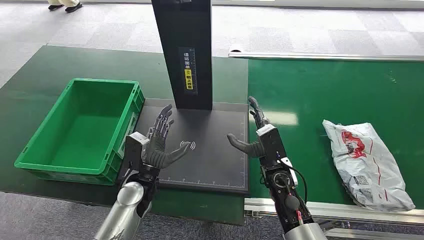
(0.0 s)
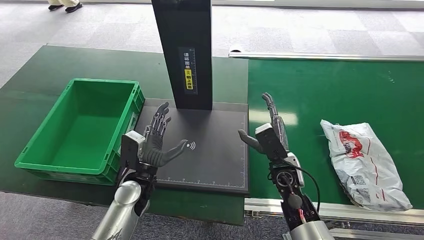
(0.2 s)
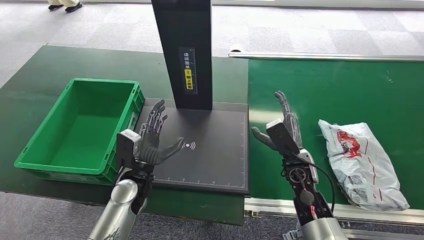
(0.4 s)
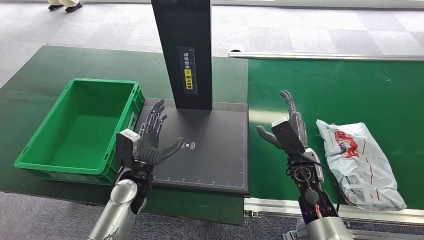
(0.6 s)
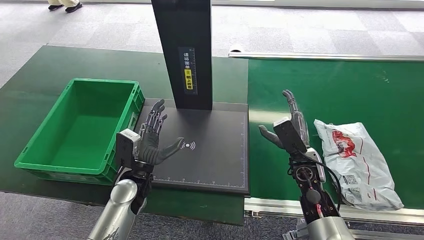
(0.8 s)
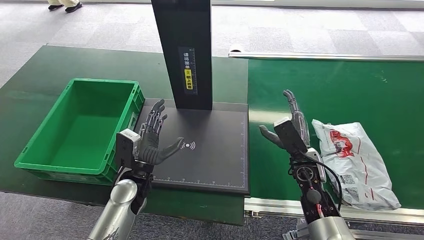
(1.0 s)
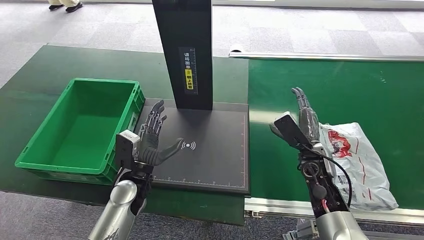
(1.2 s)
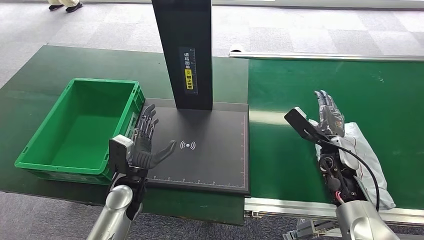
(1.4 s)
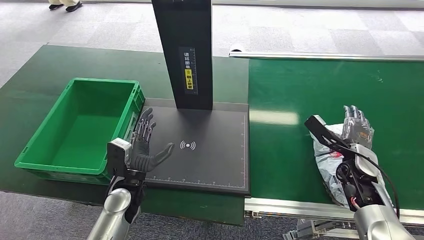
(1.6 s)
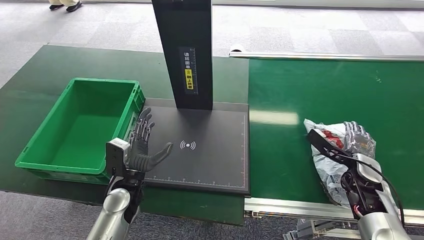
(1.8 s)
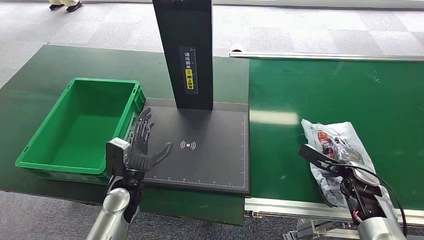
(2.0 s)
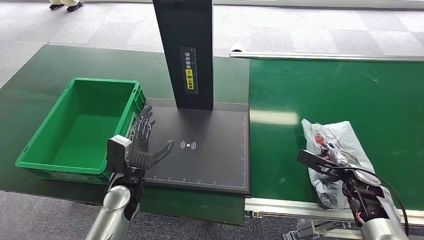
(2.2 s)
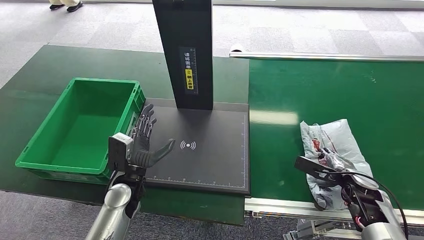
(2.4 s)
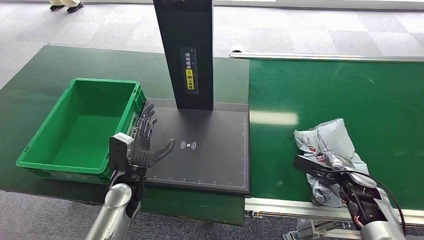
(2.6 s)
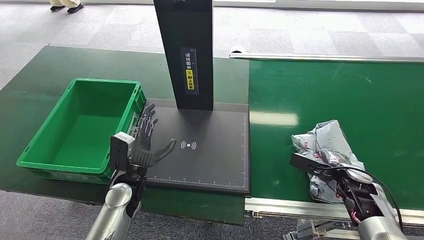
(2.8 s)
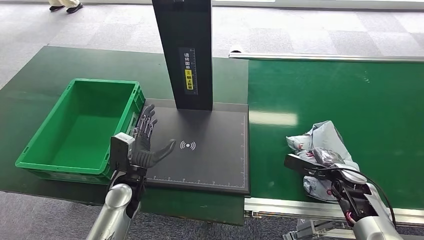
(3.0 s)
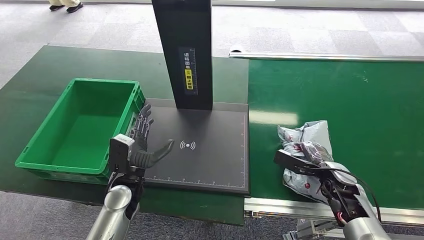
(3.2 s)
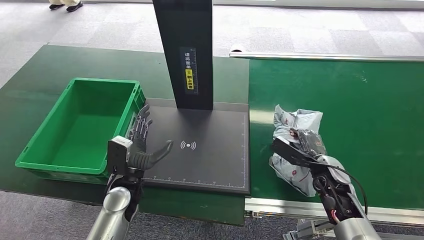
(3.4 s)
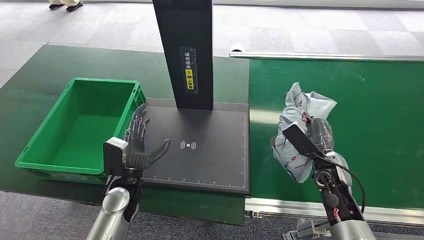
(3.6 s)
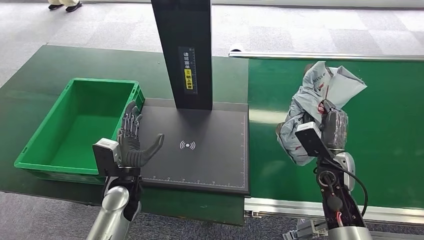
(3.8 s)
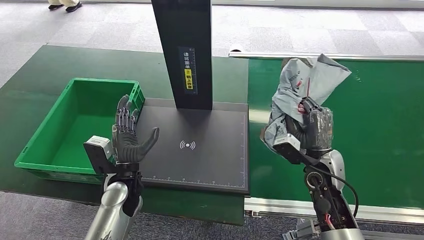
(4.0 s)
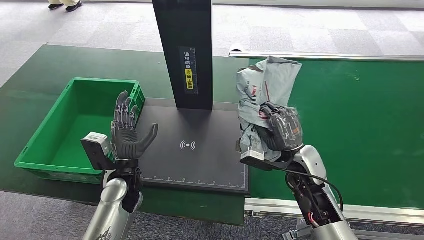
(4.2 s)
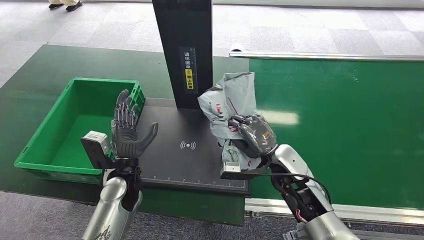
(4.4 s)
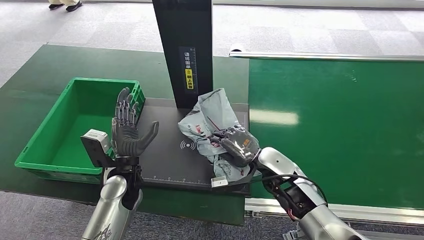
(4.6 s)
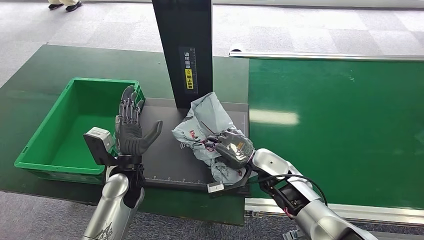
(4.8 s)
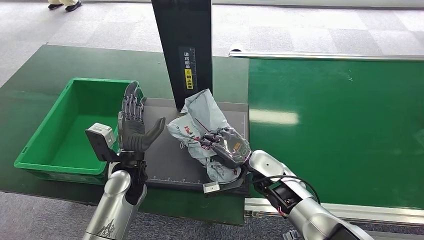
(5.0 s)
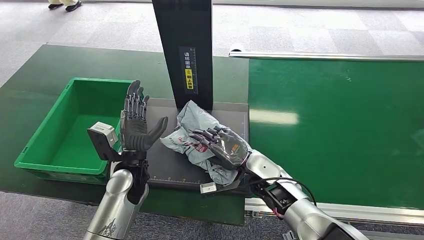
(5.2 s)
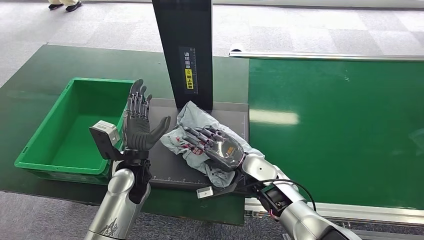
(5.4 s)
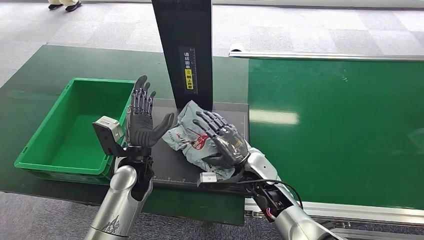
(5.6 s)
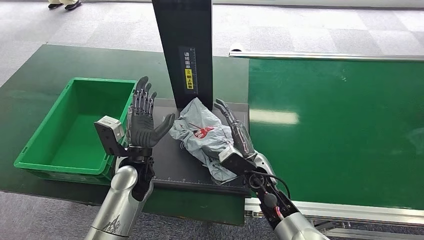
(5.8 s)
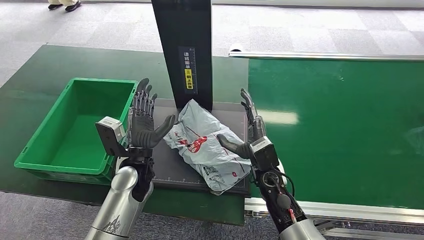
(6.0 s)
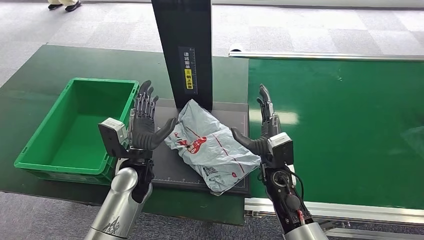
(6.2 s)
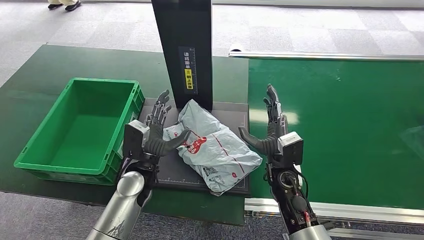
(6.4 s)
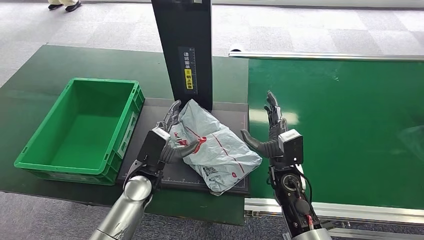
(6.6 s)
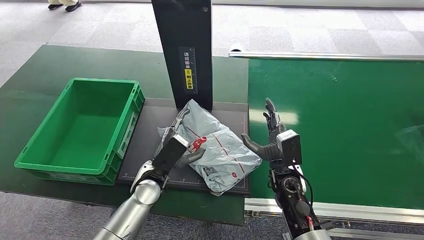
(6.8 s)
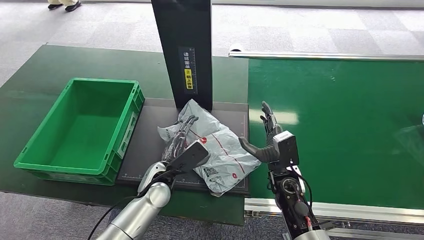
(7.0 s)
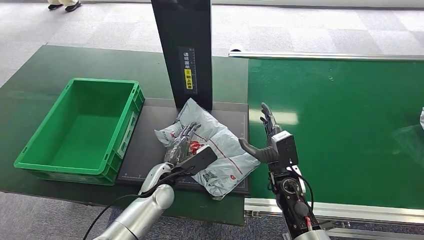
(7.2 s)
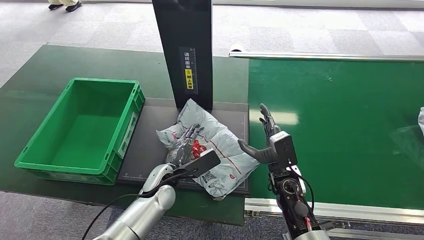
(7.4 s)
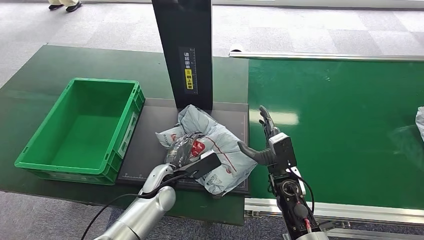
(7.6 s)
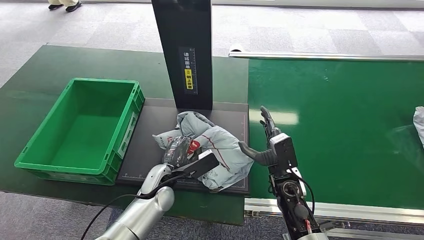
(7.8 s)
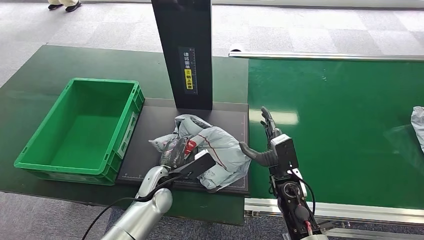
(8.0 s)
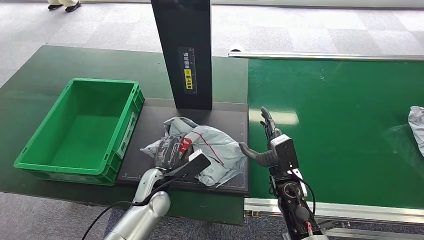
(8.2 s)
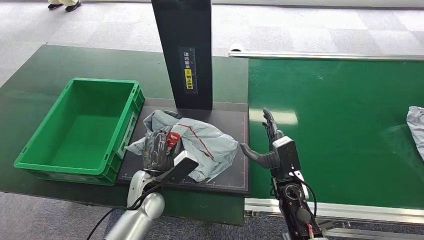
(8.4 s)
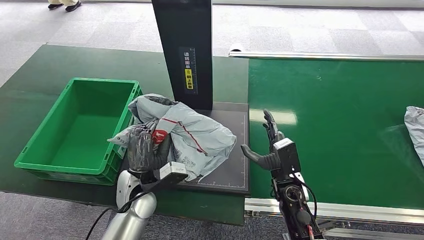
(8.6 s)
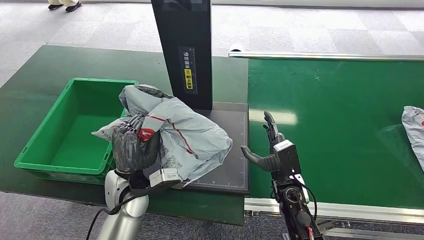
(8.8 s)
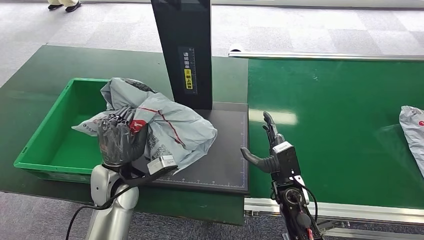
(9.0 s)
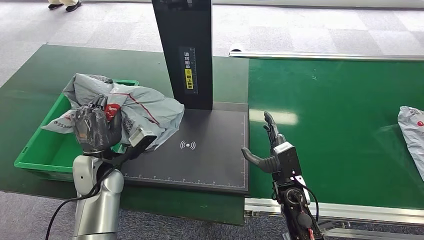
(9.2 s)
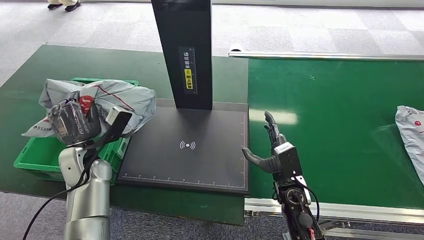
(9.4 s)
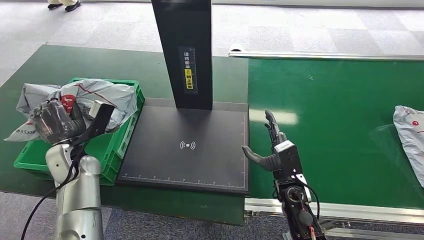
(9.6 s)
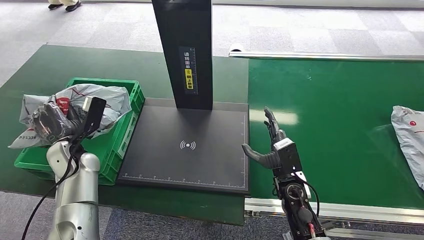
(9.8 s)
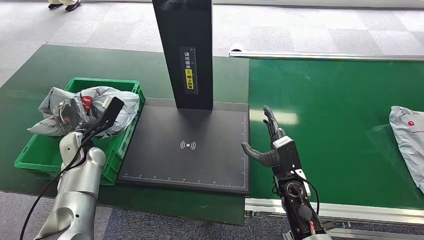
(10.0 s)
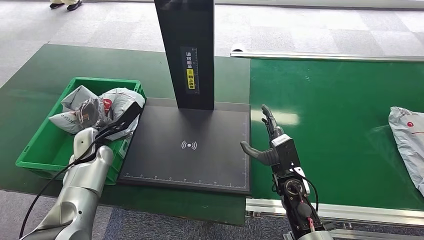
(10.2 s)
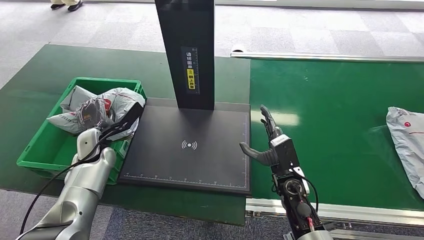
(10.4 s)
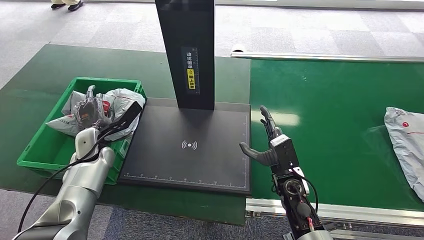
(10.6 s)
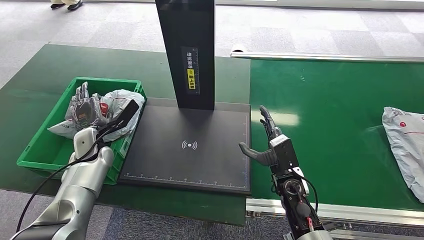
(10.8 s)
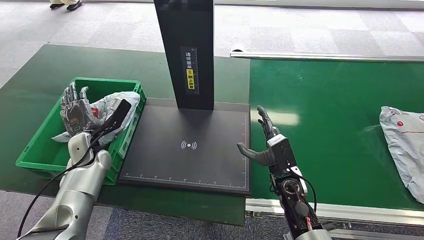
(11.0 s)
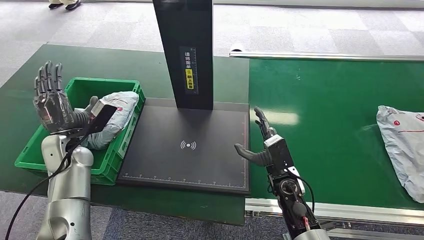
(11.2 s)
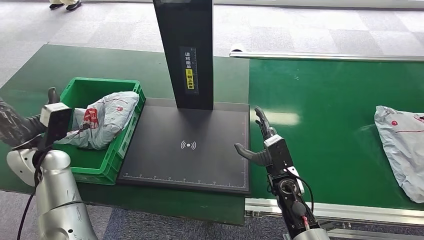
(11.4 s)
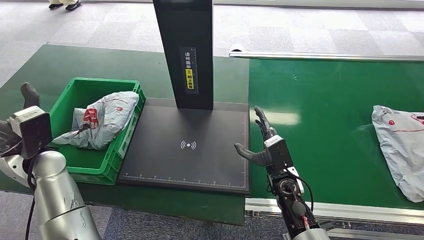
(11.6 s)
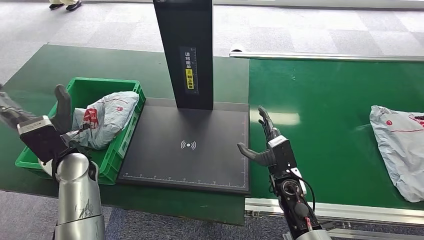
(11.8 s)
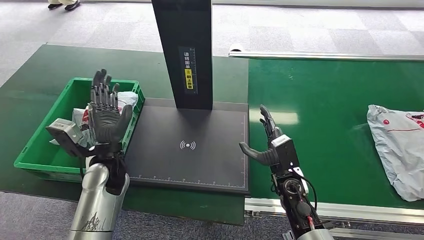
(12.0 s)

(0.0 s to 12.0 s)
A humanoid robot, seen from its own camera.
Step, 0.0 s - 4.0 s: Pick up the package from the conveyor belt.
Step, 4.2 s - 6.6 s: Place the package onto the inbound machine.
Step, 6.8 s - 9.0 s: Pick up the package from the inbound machine.
Step, 9.2 s - 12.0 s: Place the package into the parcel locker.
1.6 s - 3.0 s: The right hand is displaced downward by approximately 5 cm.
4.4 s - 6.0 s: The right hand shifts about 5 cm to the left.
6.0 s - 7.6 s: The left hand goes some 10 cm downward; the right hand shifts about 5 cm to the right.
7.6 s - 9.0 s: The left hand heads upward and to the left, covering approximately 10 cm.
10.4 s - 12.0 s: The left hand moves to the right and backward, about 10 cm.

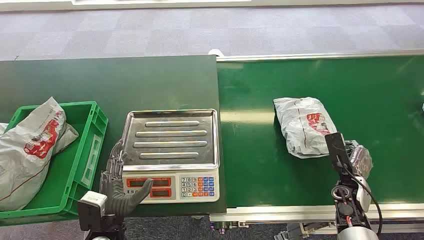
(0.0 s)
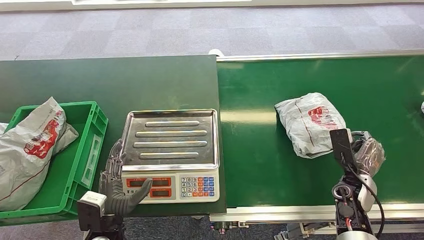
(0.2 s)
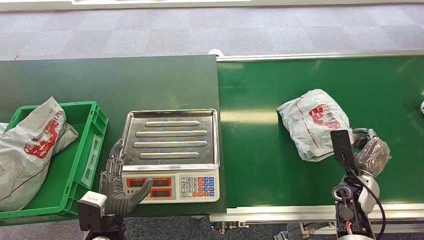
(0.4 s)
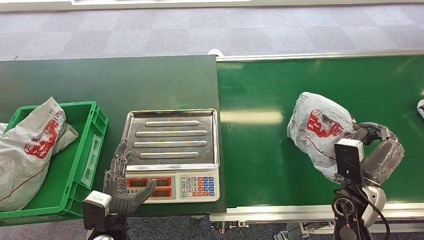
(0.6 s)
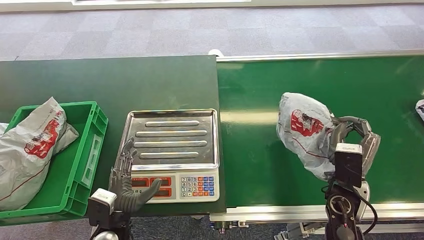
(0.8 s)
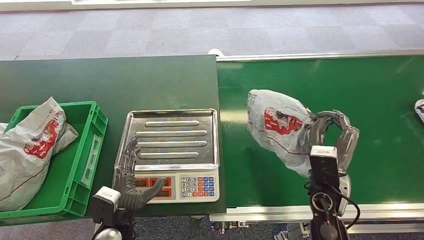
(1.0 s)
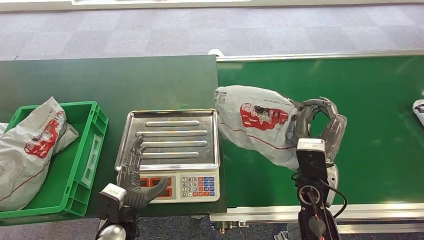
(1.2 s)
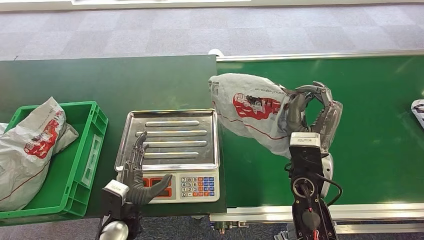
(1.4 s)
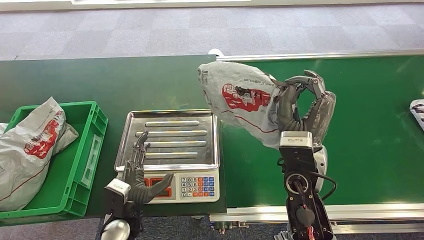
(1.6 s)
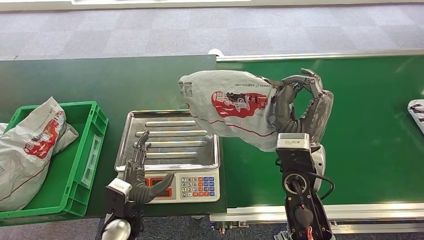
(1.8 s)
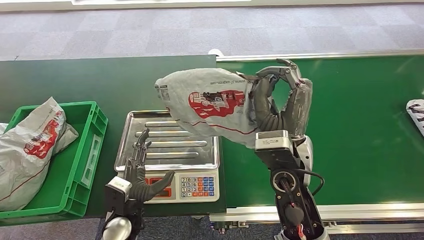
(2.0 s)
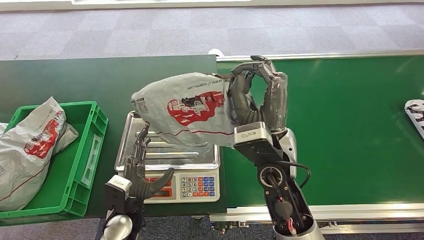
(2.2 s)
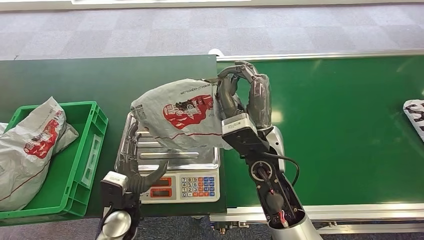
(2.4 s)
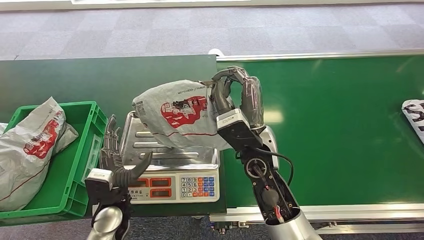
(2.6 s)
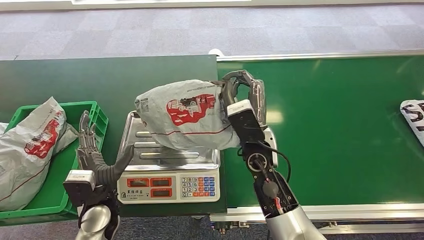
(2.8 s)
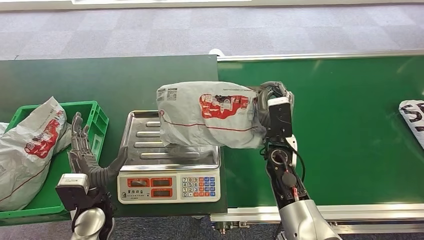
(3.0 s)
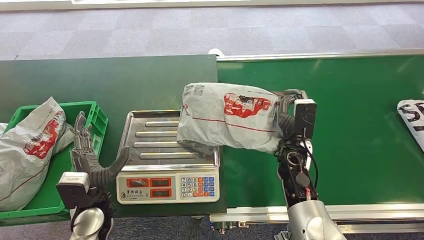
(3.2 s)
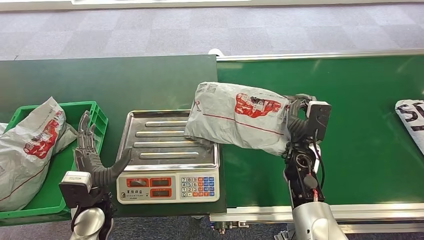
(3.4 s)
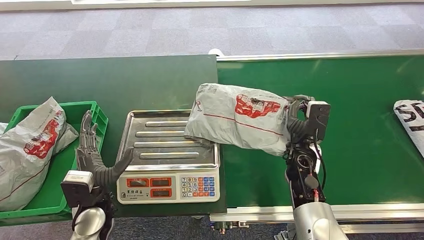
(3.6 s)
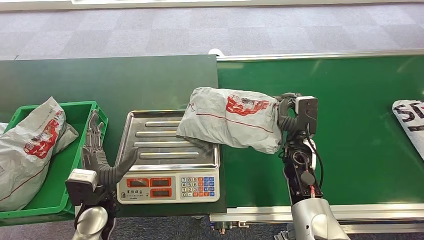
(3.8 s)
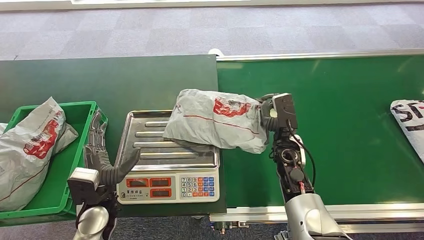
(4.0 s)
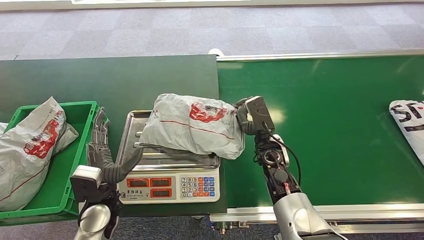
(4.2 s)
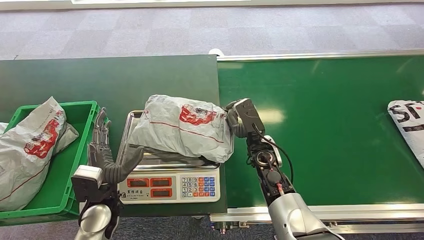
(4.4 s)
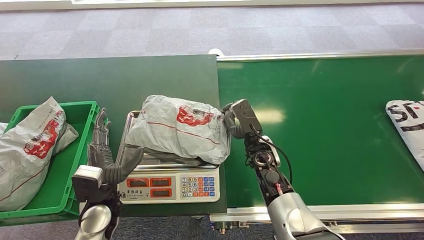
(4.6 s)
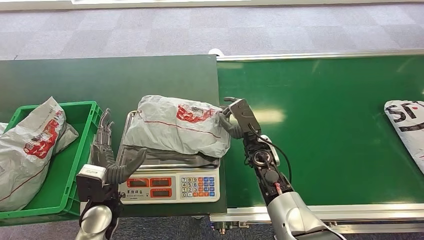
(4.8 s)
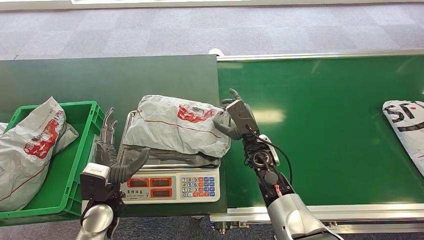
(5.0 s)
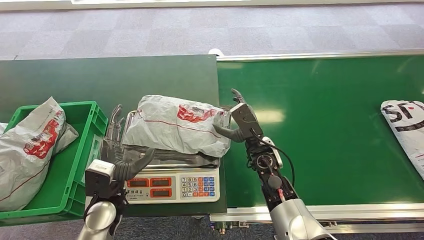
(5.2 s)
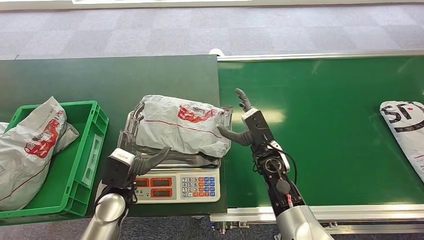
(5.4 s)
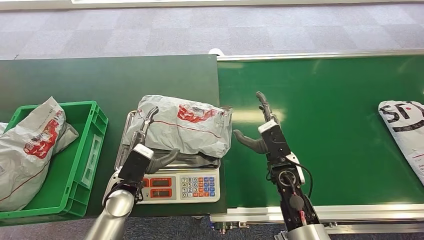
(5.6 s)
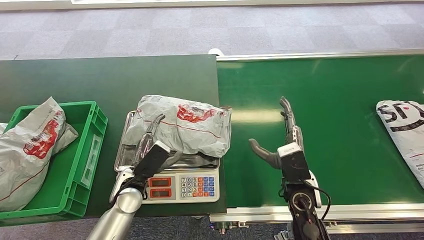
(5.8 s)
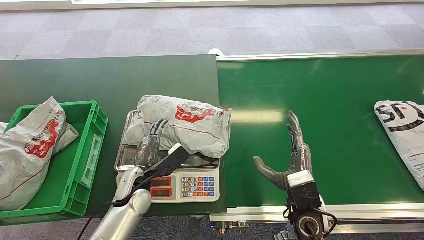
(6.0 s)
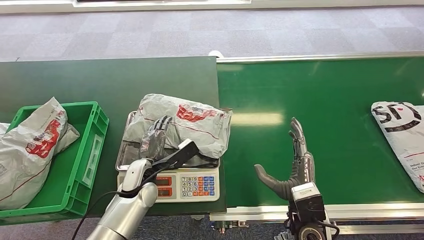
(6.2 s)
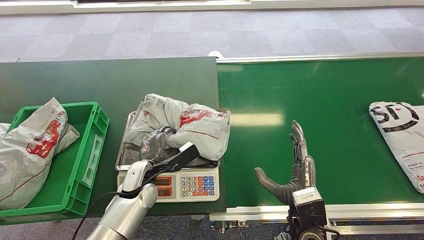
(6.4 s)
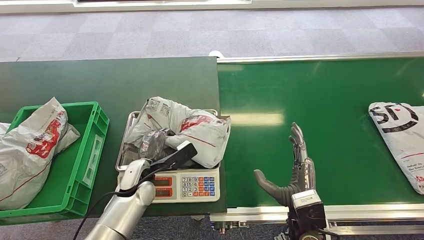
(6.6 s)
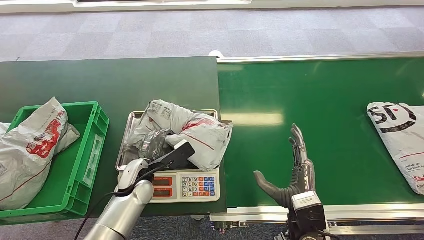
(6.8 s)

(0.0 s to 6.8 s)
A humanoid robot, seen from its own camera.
Step, 0.0 s - 1.0 s: Pick up the package from the conveyor belt.
Step, 1.6 s - 5.2 s: Place the package onto the inbound machine.
2.8 s - 4.0 s: The right hand travels to the right and downward by approximately 15 cm.
